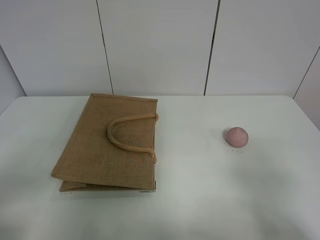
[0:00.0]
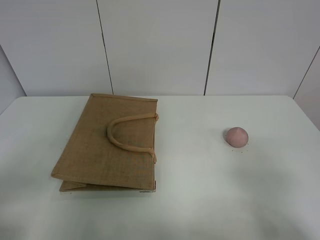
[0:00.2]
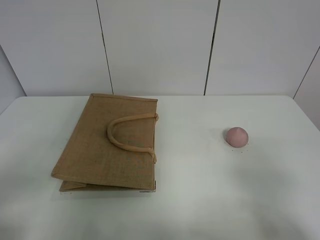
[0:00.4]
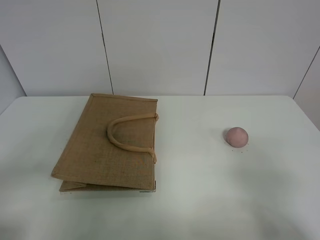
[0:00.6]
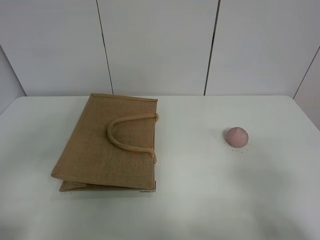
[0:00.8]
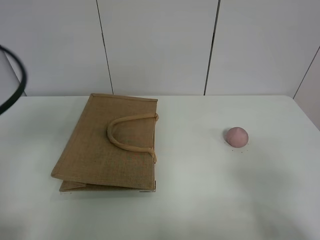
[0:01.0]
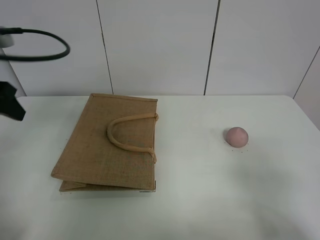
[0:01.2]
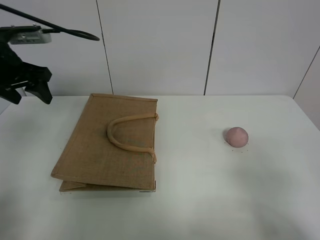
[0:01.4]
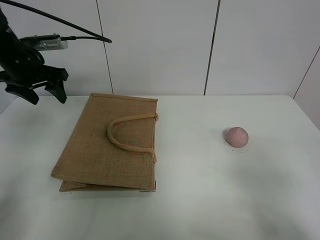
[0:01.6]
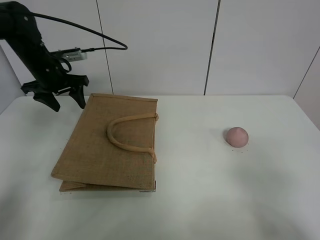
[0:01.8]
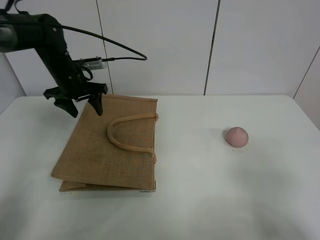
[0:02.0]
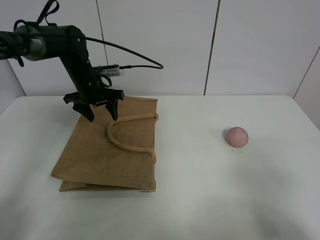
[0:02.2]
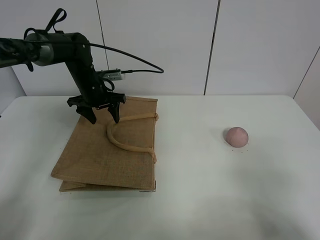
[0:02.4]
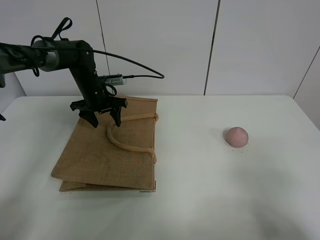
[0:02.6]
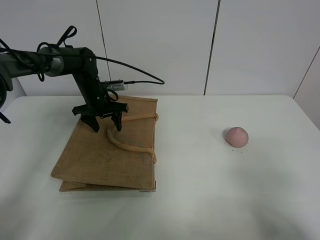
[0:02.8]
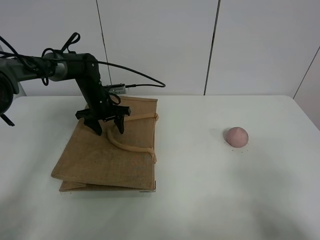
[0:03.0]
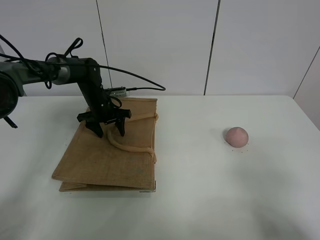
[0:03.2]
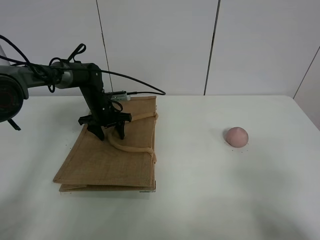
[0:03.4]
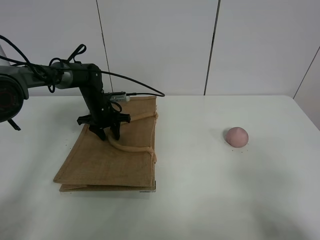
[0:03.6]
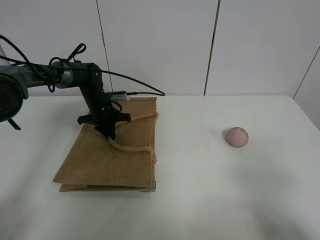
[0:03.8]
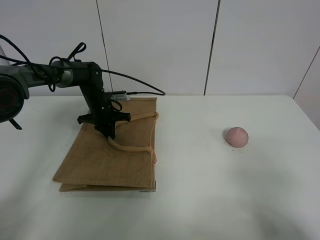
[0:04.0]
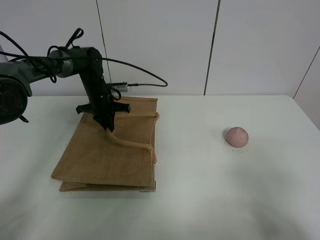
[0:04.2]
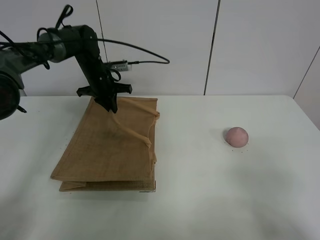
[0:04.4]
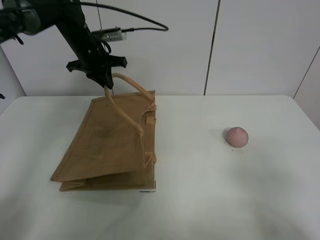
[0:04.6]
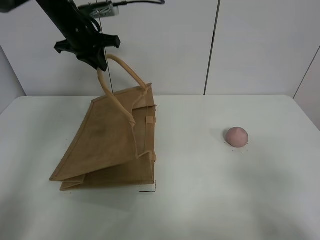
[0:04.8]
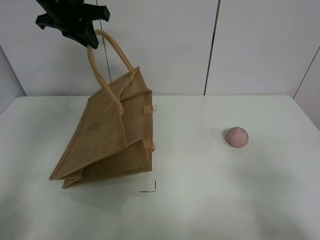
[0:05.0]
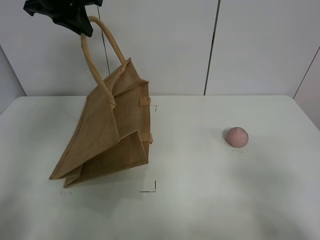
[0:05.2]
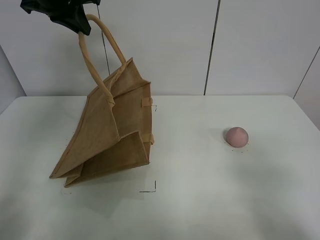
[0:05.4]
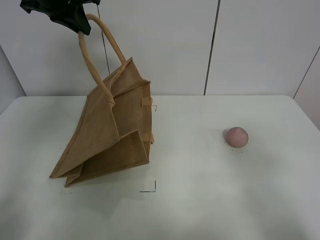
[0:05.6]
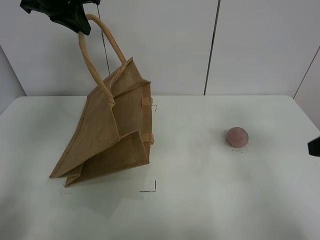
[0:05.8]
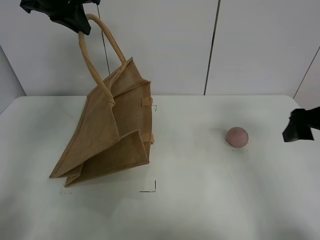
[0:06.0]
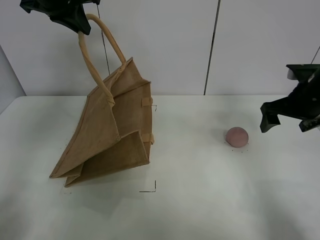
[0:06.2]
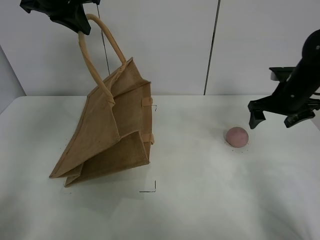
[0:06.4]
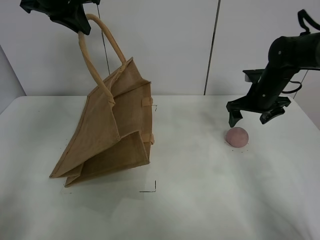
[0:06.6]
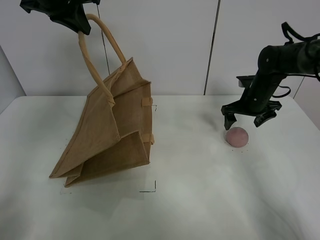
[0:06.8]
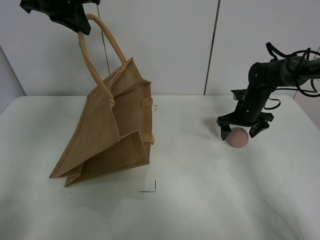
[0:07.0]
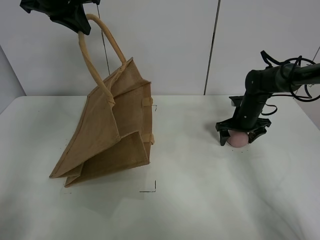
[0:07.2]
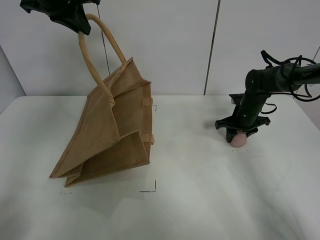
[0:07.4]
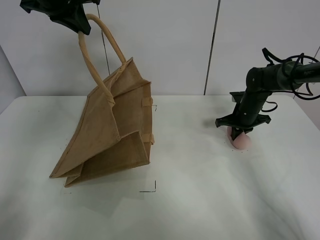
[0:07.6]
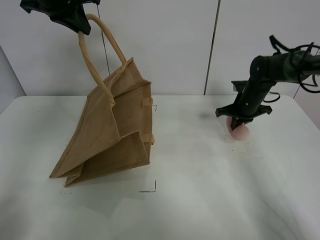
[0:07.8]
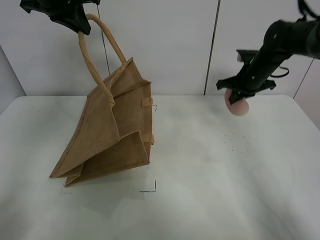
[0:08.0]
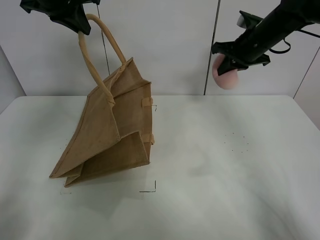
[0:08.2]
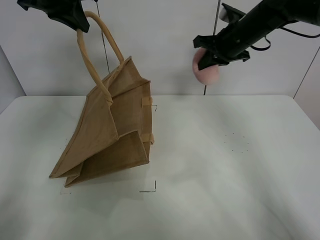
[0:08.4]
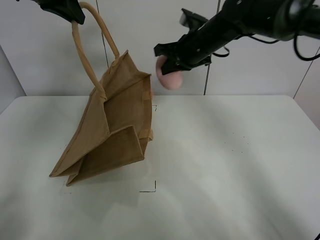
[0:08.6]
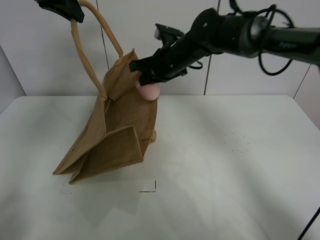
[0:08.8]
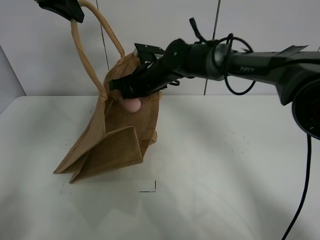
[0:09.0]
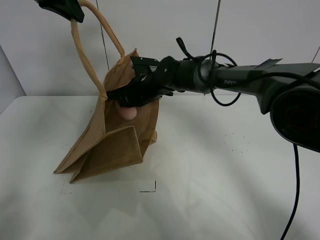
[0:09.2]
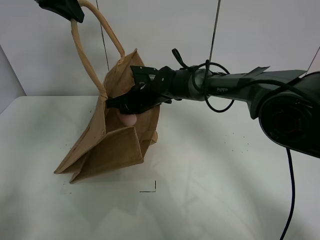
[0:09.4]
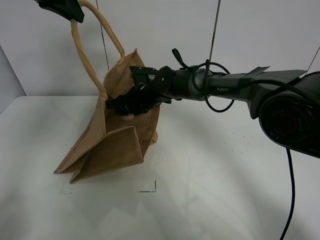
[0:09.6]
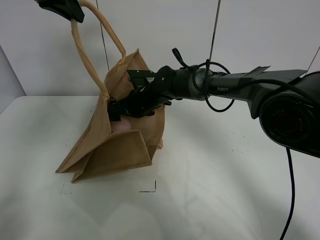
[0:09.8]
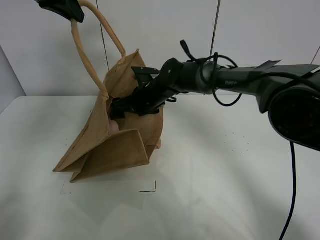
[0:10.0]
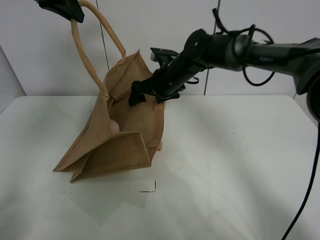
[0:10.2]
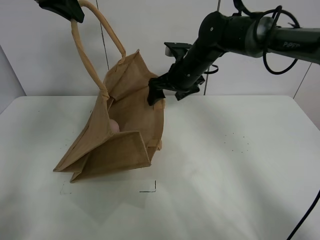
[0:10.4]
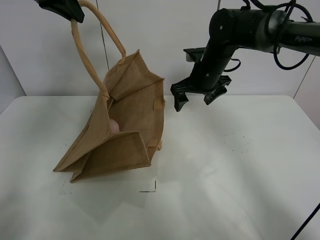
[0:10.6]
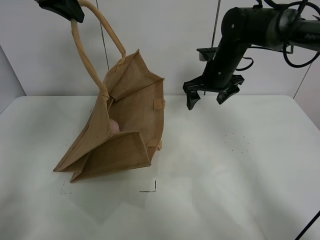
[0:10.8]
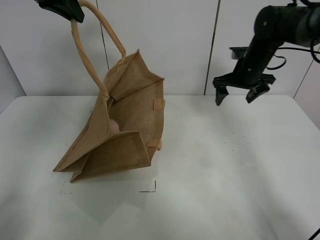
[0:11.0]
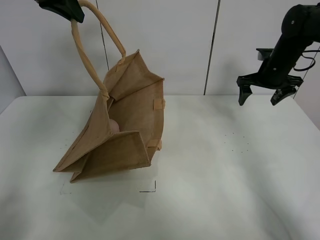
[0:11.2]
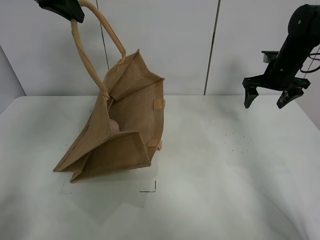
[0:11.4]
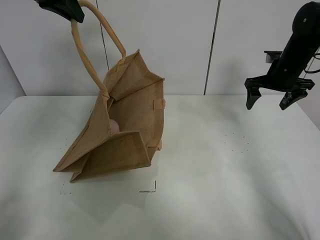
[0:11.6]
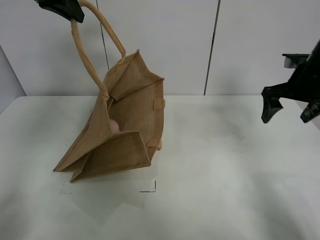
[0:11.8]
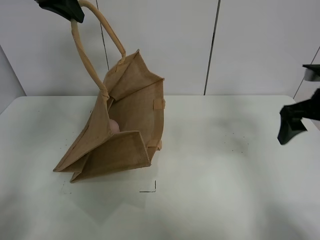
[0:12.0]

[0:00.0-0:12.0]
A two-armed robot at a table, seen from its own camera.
Task of the whole recording: open the brown linen bag and put the peach in the bag.
Step, 0:00.0 to 0:05.2: Lift the handbag with left gripper.
Step, 0:05.4 to 0:07.4: Grasp the peach with right gripper.
Step, 0:07.6 to 0:10.4: Place the peach in the handbag with right gripper.
0:00.0 to 0:01.6: The left gripper heads forward, covering roughly 40 cm.
0:01.6 to 0:03.0: The left gripper heads downward, to the right and forward, covering some 20 cm.
0:03.0 to 0:04.4: The left gripper goes approximately 5 cm upward, and closes up.
0:04.4 to 0:06.0: The left gripper is displaced upward and backward by some 25 cm. The right gripper travels forward by some 25 cm.
0:06.0 to 0:07.6: The right gripper goes approximately 25 cm forward and downward, and closes.
0:07.6 to 0:09.0: The right gripper heads to the left, covering approximately 25 cm.
0:09.0 to 0:10.4: The right gripper moves to the right, roughly 10 cm, and opens its fingers.
0:10.4 to 0:12.0: The right gripper moves to the right and backward, approximately 25 cm.

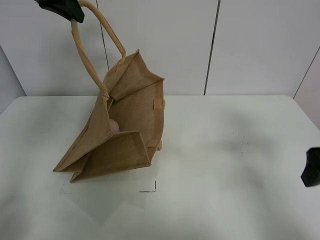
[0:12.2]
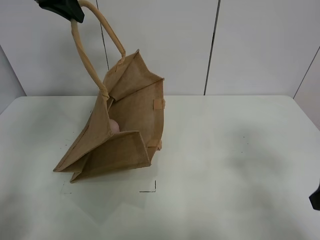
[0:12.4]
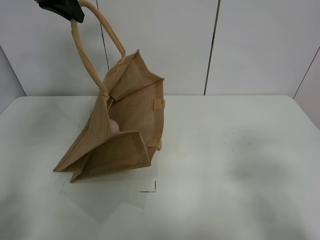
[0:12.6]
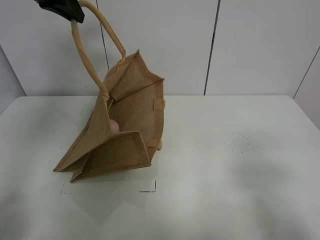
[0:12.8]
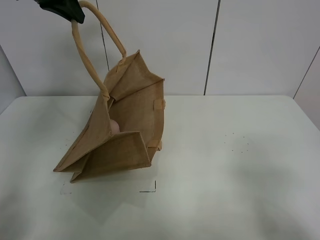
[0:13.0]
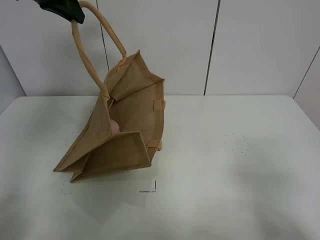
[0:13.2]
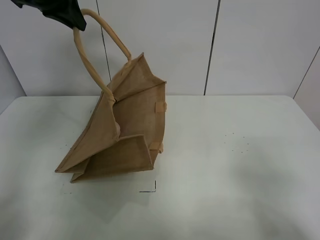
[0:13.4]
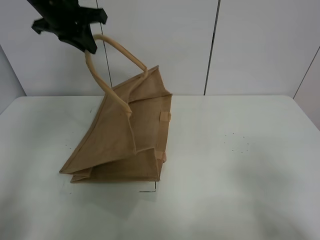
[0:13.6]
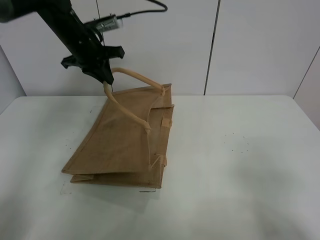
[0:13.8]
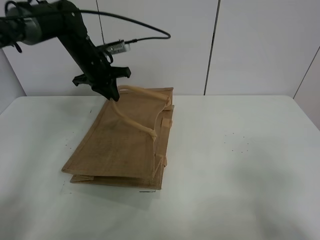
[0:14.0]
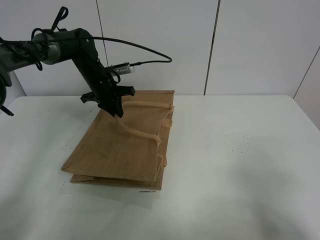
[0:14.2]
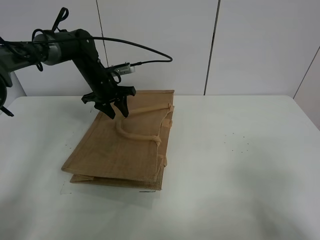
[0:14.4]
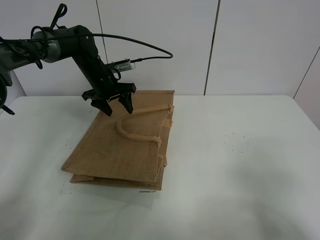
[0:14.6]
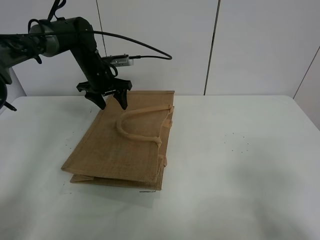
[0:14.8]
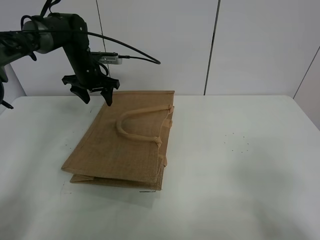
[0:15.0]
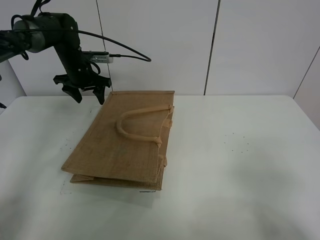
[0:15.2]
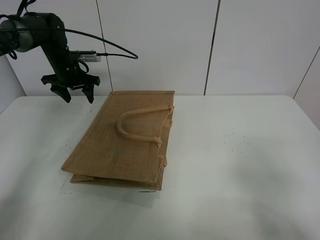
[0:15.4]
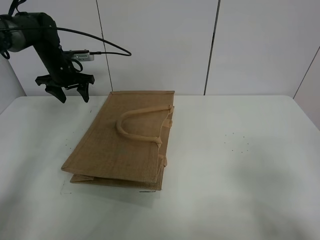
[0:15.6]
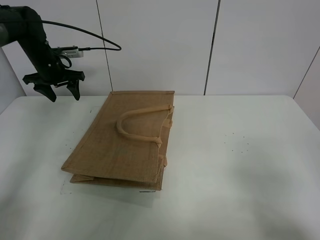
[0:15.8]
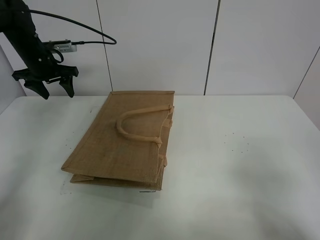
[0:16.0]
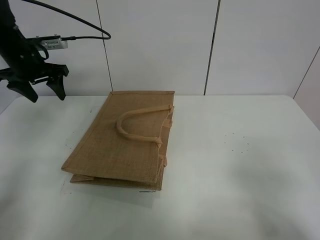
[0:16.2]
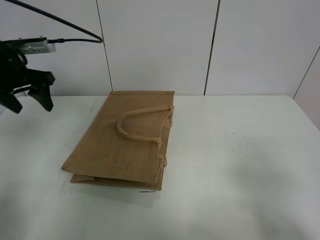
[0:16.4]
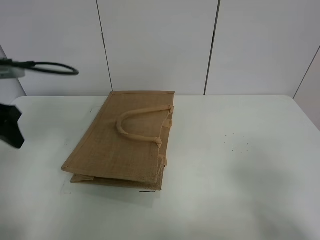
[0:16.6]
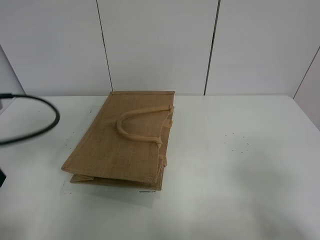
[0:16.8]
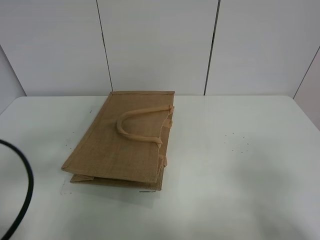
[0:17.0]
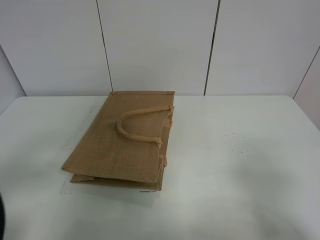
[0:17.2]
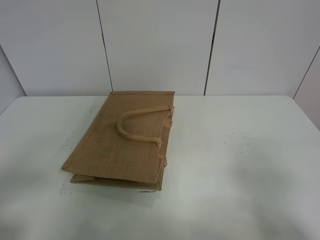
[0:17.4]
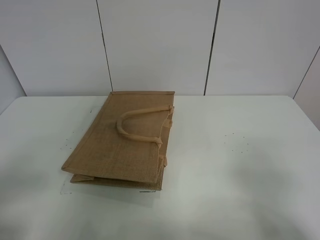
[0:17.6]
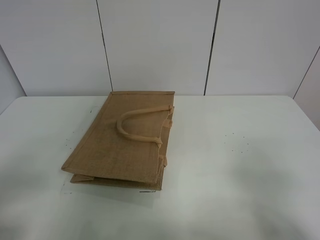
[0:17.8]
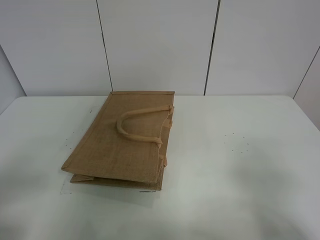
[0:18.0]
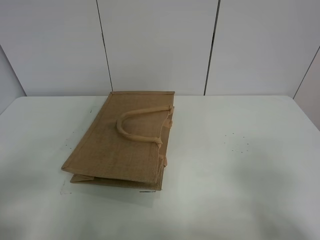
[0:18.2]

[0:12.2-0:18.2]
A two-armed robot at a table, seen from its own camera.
Task of the whole recording: open the brown linen bag and put the peach in the bag.
Step, 0:12.2 to 0:15.0: Put down the handbag with left grippe.
0:12.2 to 0:13.8: The right gripper is displaced backward by approximately 15 cm. The left gripper is displaced downward and forward by some 15 cm.
0:13.8 to 0:15.2: The left gripper moves downward and to the left, some 10 cm, and opens up.
0:15.2 to 0:16.6: The left gripper travels backward by approximately 30 cm.
0:16.6 to 0:18.2: The left gripper shifts roughly 20 cm backward.
